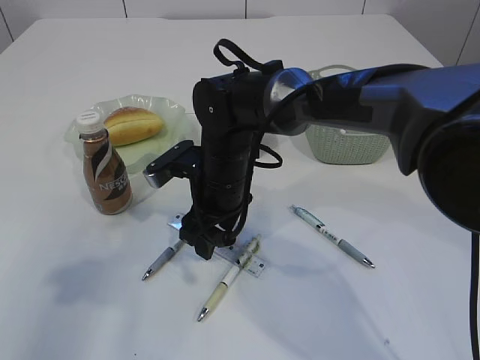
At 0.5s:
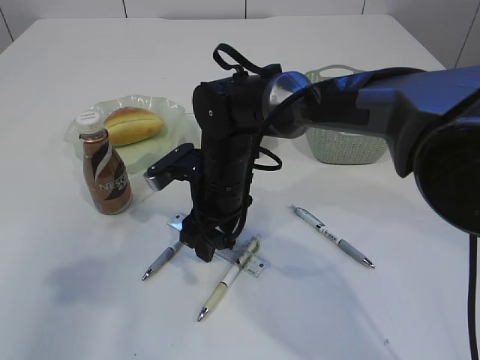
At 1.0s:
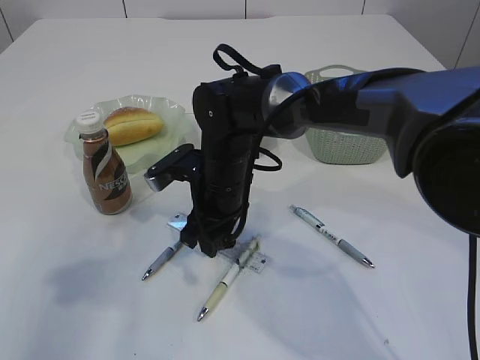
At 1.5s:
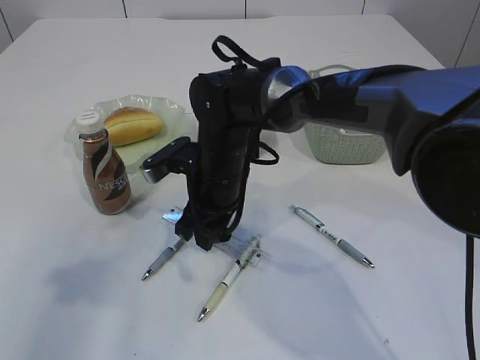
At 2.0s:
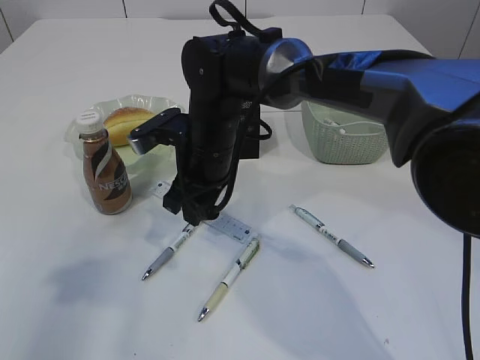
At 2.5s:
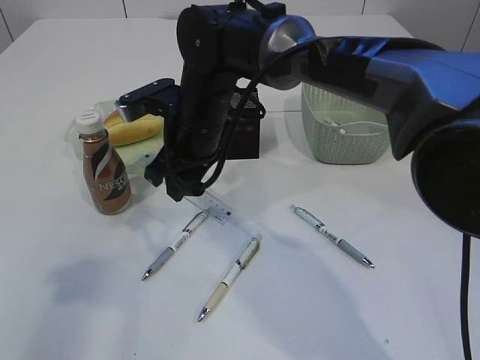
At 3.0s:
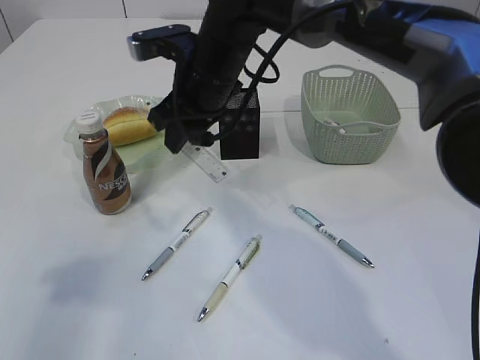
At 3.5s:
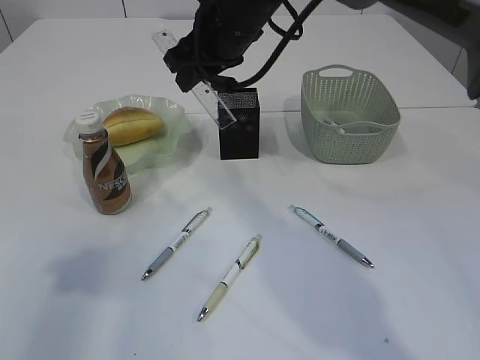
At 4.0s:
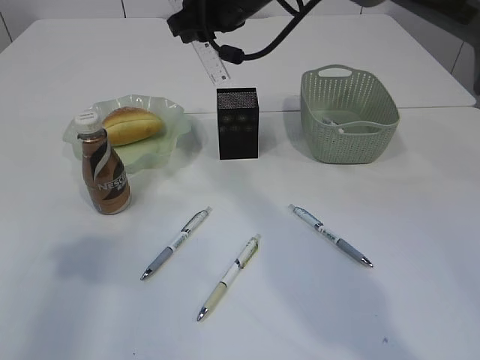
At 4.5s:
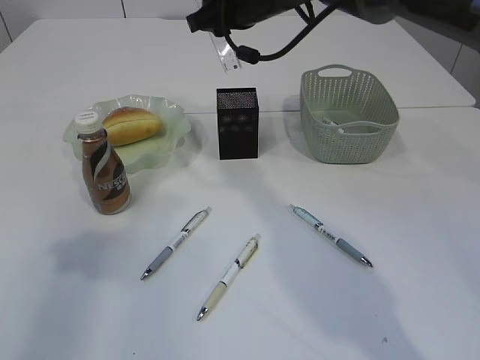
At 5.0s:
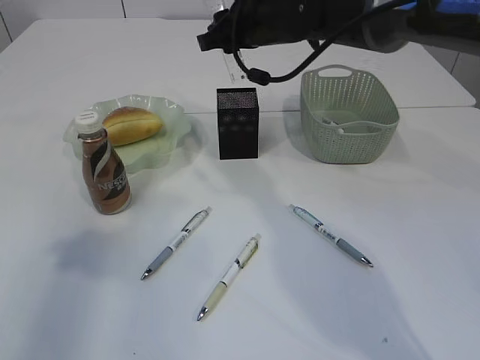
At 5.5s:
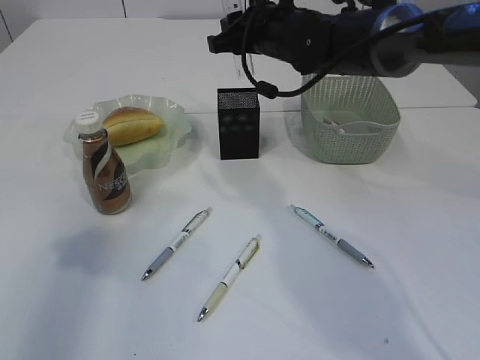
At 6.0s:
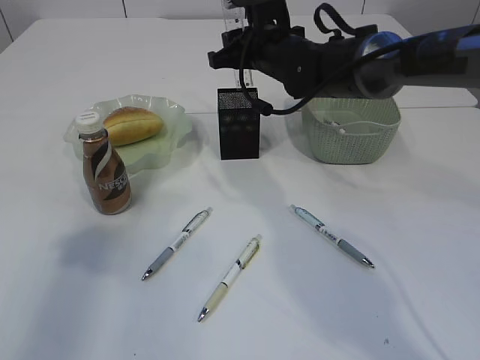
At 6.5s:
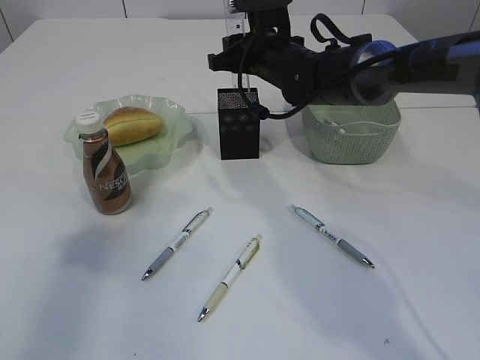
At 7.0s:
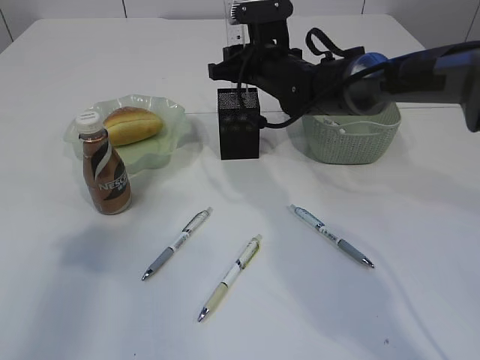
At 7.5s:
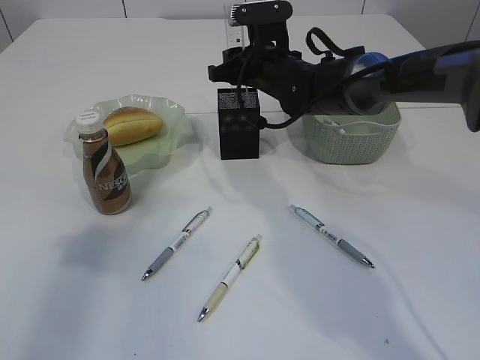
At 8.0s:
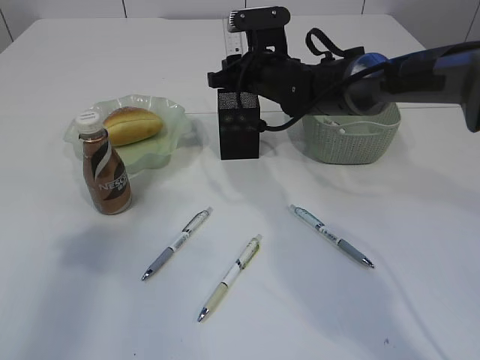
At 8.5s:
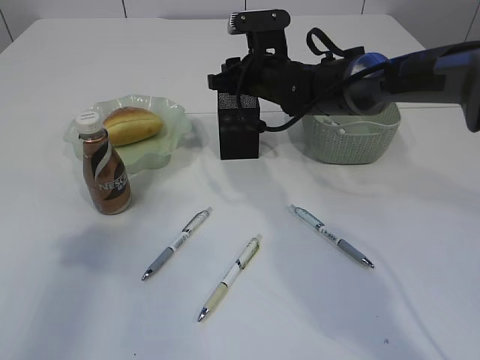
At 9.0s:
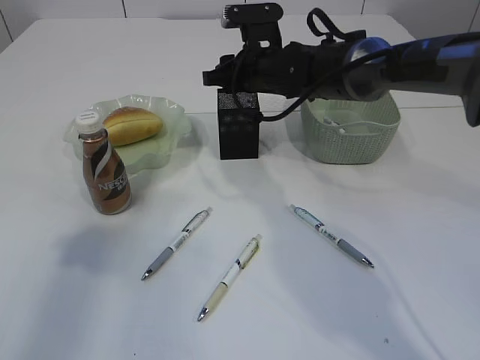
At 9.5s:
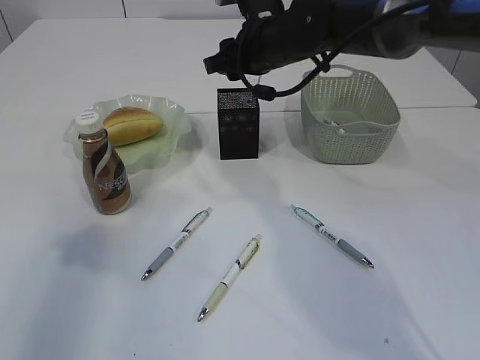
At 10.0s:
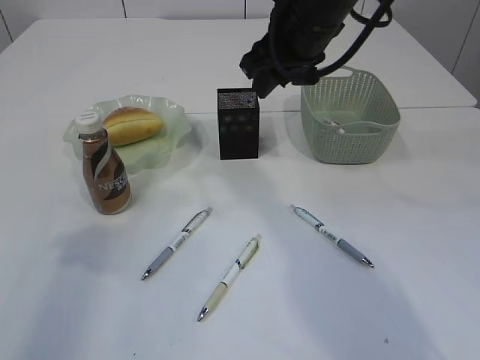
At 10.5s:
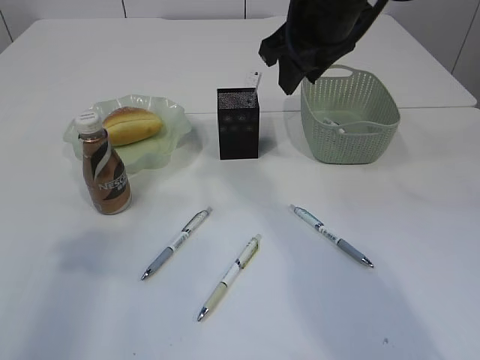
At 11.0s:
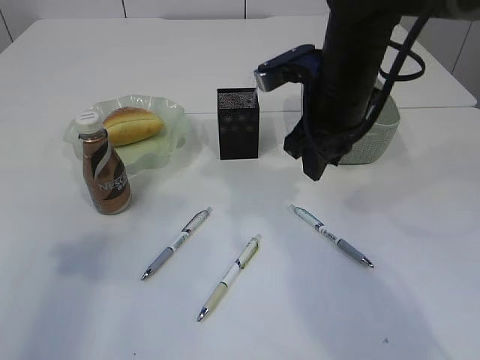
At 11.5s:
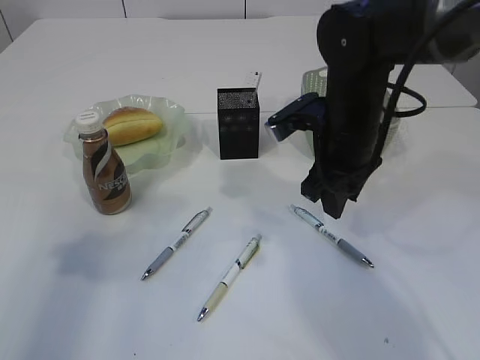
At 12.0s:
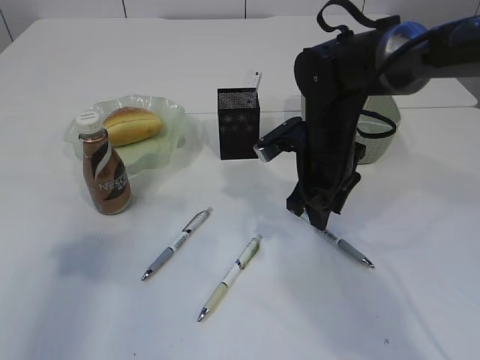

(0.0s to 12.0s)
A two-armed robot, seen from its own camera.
Step, 0.0s - 3.0s: pick up the ruler.
Step, 3.5s - 10.0s: Place the ruler into the pen holder.
0.0s - 2.0s: The right gripper closes its fingers.
2.0s - 4.0s: The right gripper is displaced upward and forward by roughly 15 cm.
4.0s - 6.0s: The right gripper shifts approximately 10 cm downward.
6.0s - 8.0s: There are only small adjustments of the grippers.
8.0s - 10.0s: The right gripper is displaced upward and backward by roughly 15 cm.
10.0s - 12.0s: The right gripper goes roughly 15 cm downward.

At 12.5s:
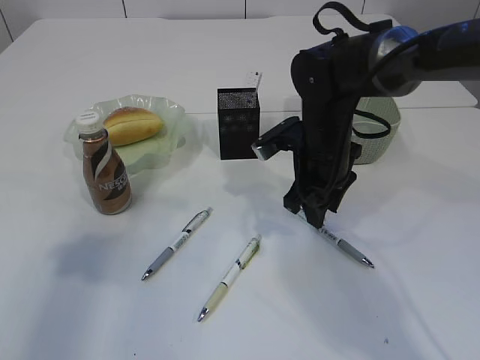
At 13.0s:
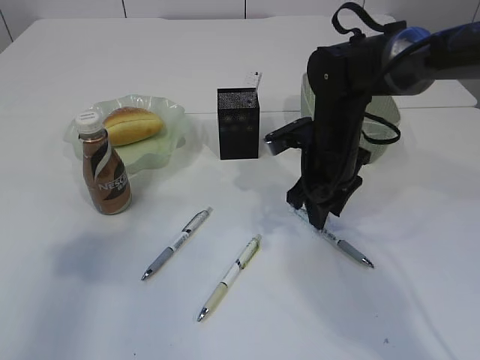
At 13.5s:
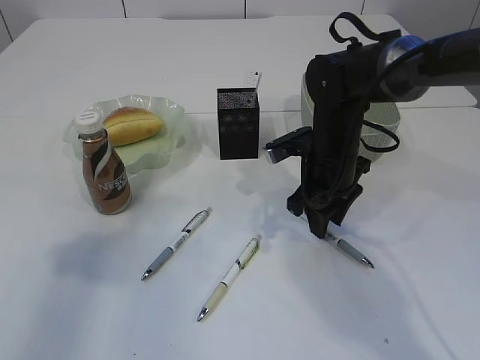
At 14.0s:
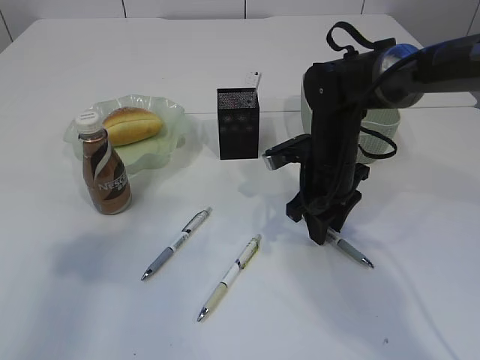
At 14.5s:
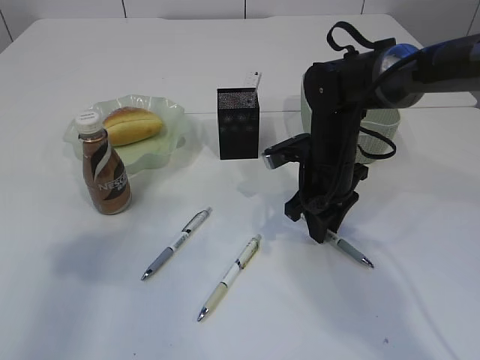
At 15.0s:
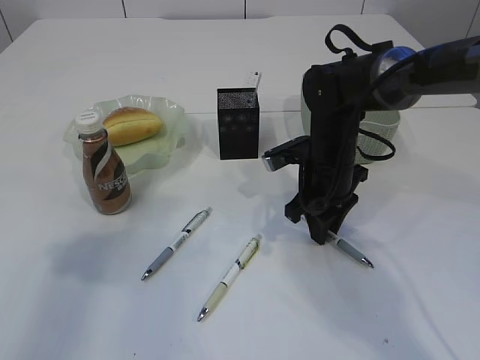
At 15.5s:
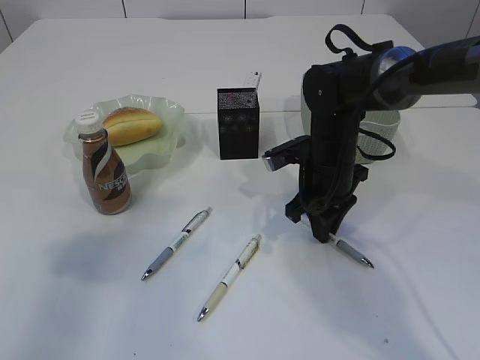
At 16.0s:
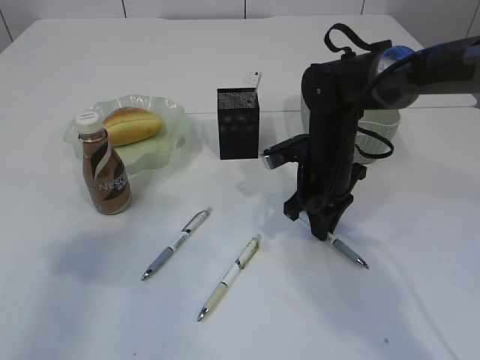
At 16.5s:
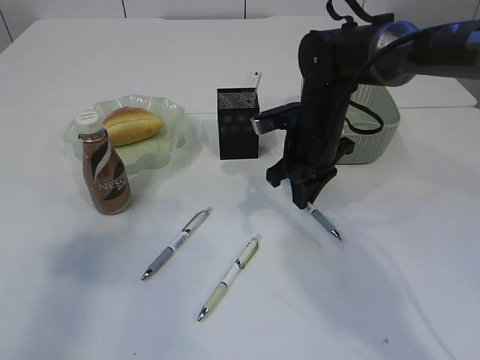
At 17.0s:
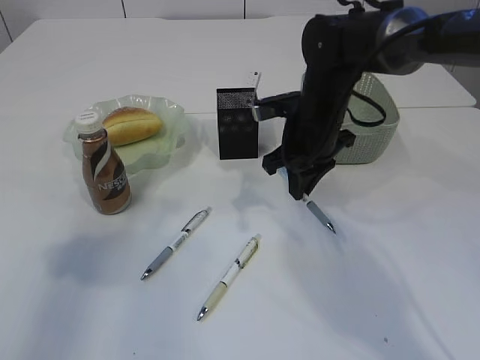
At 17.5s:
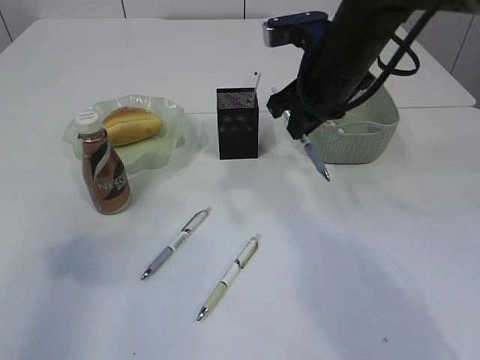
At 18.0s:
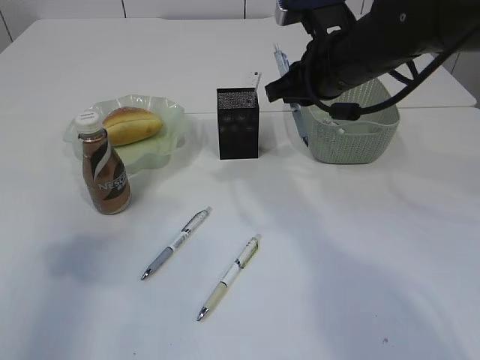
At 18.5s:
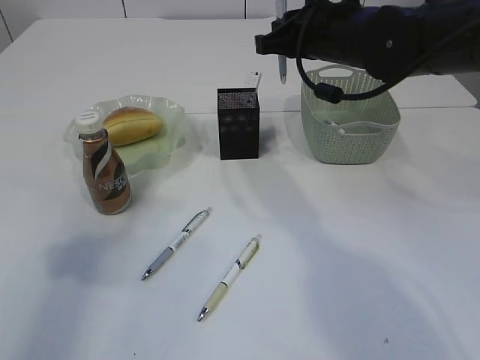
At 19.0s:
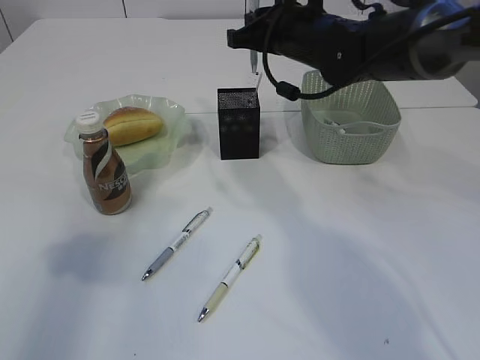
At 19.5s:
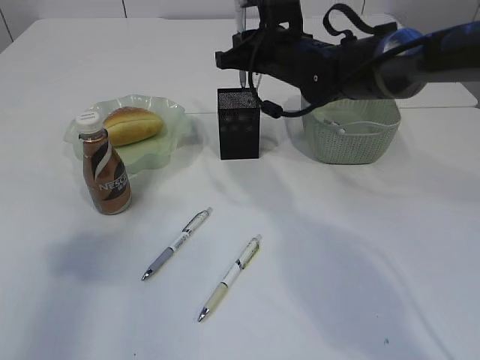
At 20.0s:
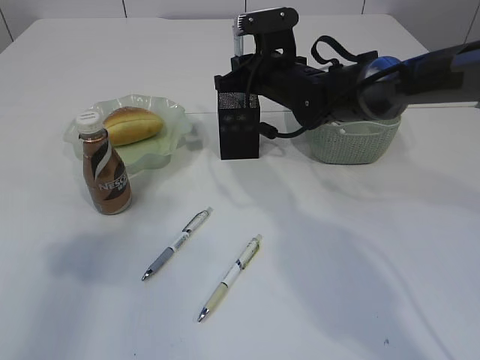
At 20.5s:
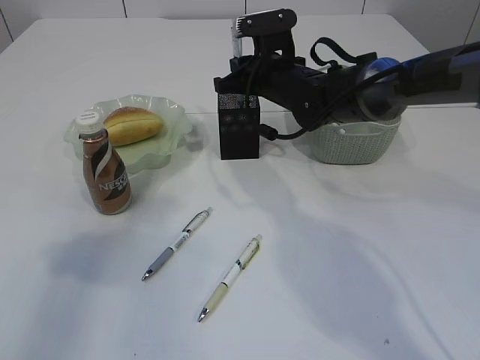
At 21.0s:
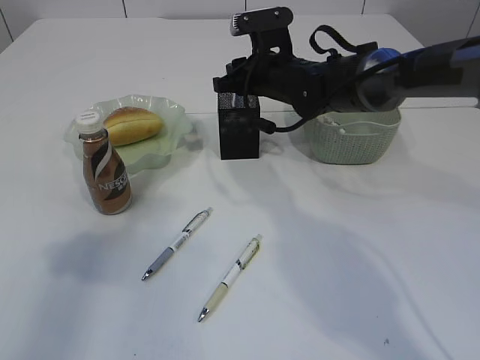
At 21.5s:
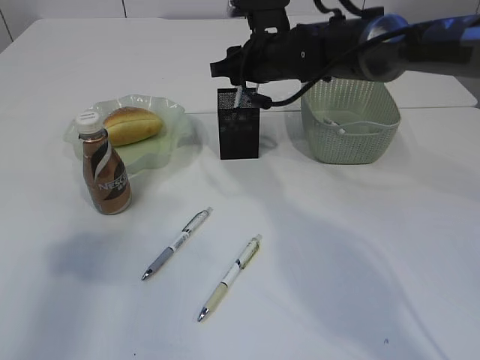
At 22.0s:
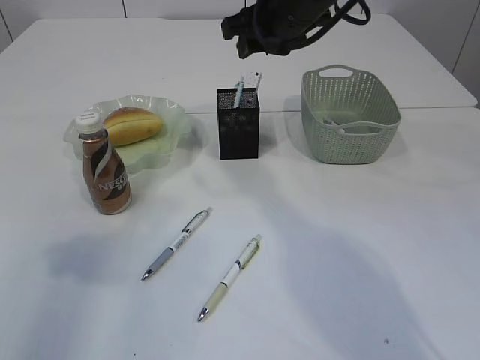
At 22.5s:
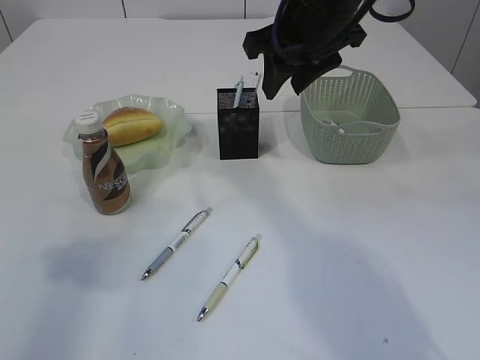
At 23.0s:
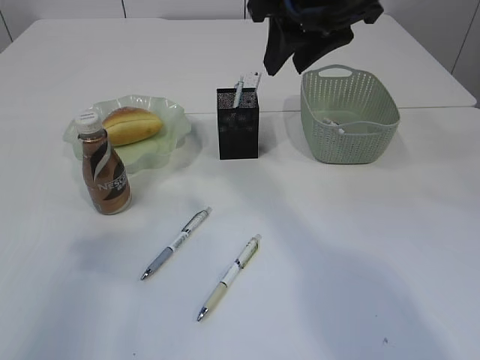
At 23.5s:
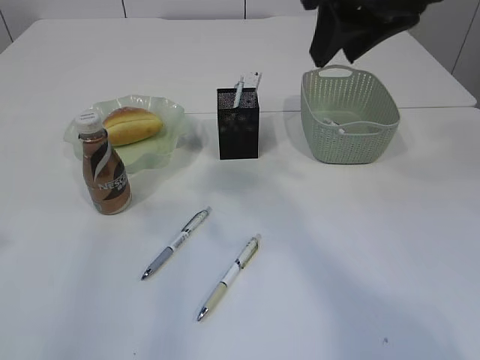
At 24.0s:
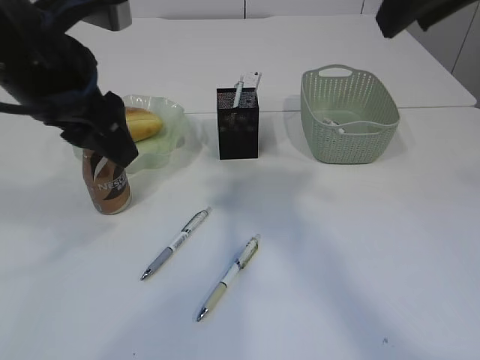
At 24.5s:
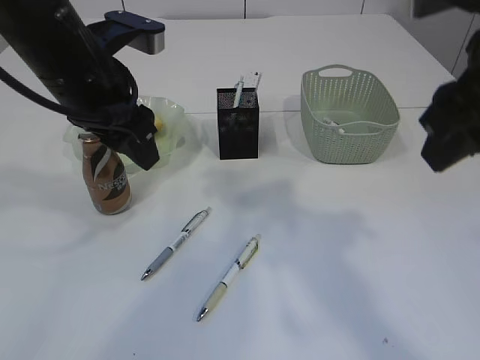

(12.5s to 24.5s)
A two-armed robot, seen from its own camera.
Step, 12.5s - 17.0s: Pick up the pen with right arm.
Step, 17.5s - 22.0s: Place the pen into the pen holder.
12.5s - 16.5s: The grippers move only a little.
16.5s - 18.5s: The right gripper heads upward, covering approximately 10 cm.
18.5s - 20.5s: The right gripper travels downward and forward by some 10 cm.
20.5s - 22.5s: The right gripper goes about 15 cm upward and backward, and opens.
22.5s - 24.5s: The left gripper shifts approximately 20 cm to the right and forward, while the right gripper shifts approximately 20 cm backward and to the right.

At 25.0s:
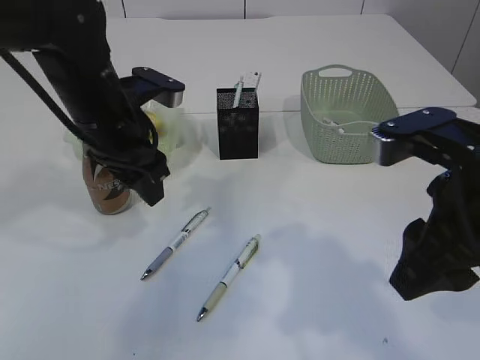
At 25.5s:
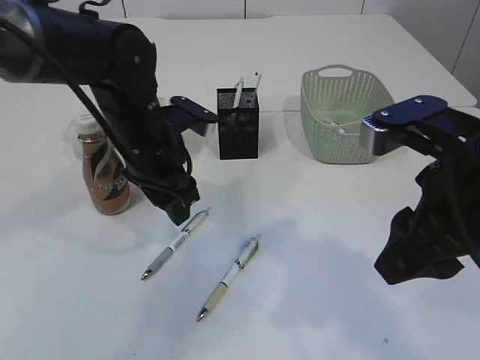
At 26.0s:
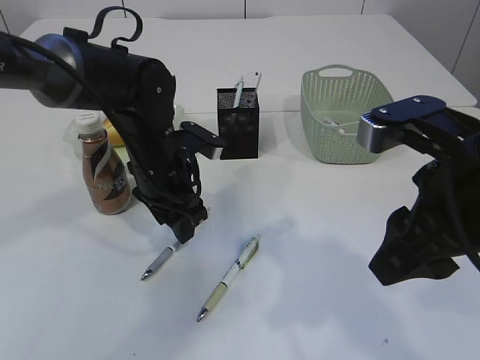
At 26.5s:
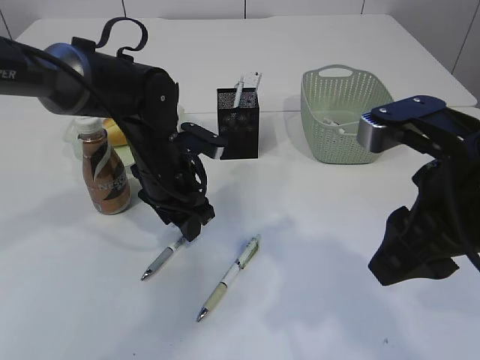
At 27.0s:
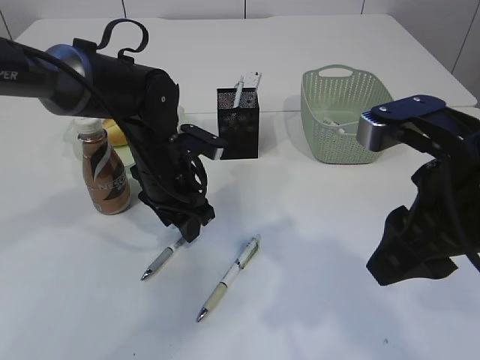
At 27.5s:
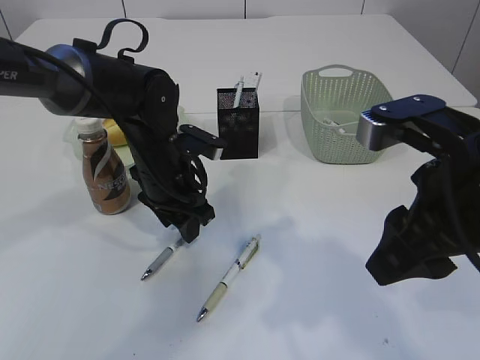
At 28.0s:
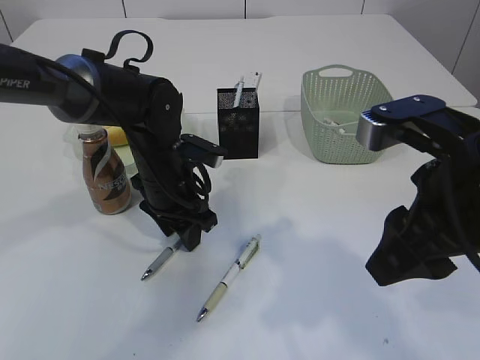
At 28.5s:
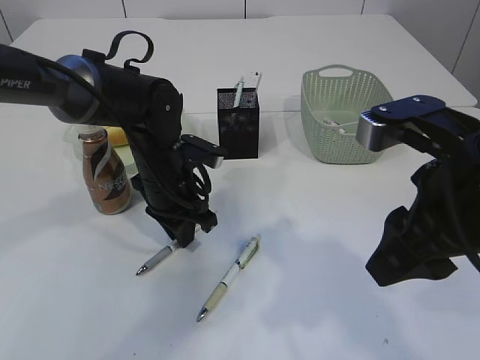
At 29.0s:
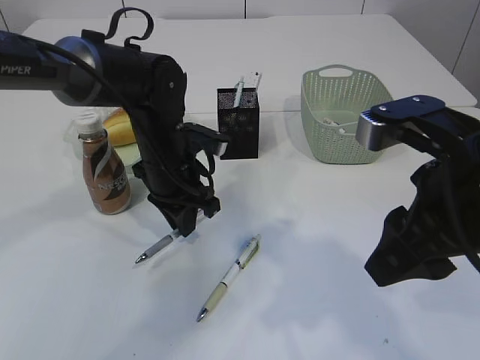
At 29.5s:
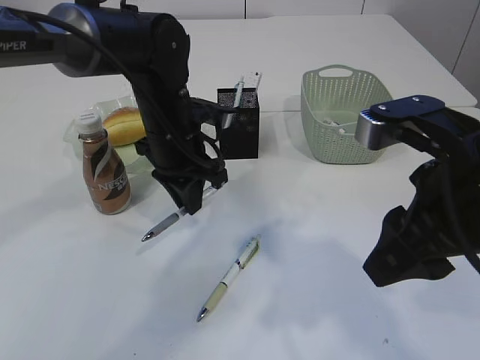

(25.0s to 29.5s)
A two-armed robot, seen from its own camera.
25.0s - 27.0s: The left gripper moves downward, roughly 10 cm.
27.0s - 29.5s: The left gripper closes.
